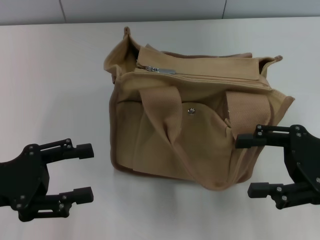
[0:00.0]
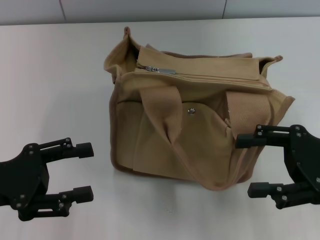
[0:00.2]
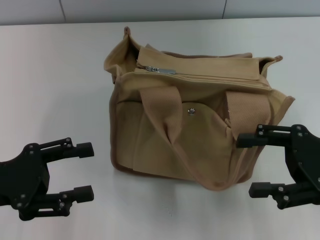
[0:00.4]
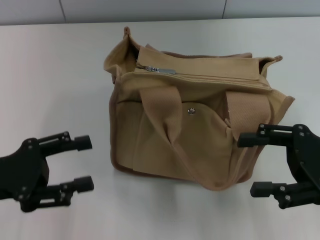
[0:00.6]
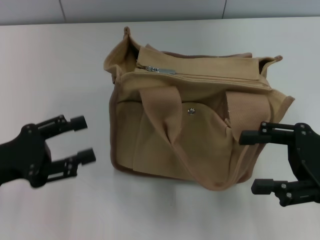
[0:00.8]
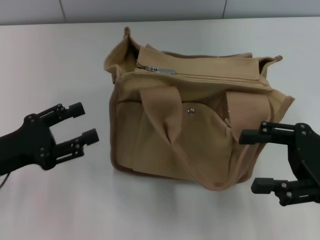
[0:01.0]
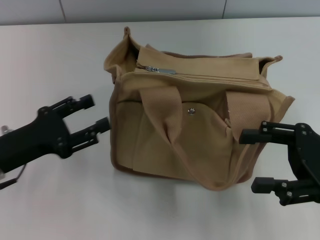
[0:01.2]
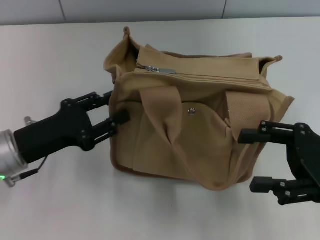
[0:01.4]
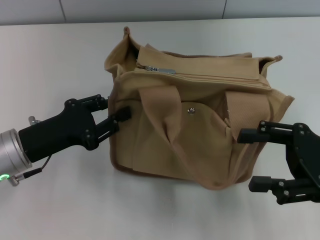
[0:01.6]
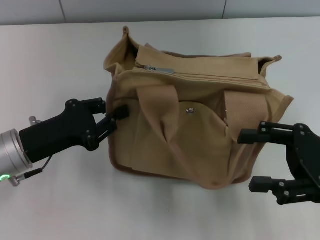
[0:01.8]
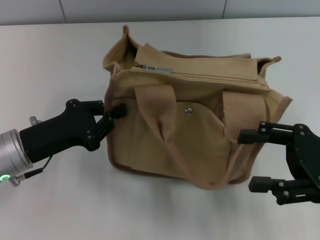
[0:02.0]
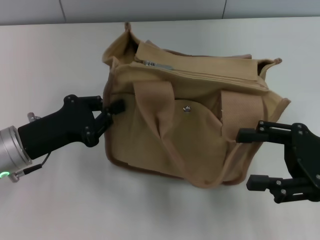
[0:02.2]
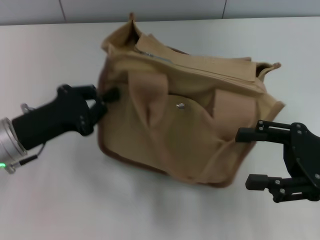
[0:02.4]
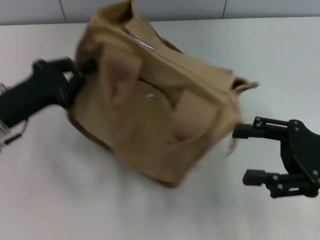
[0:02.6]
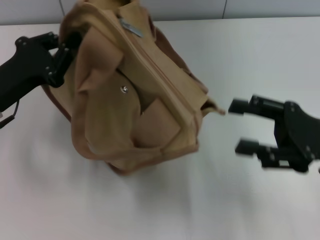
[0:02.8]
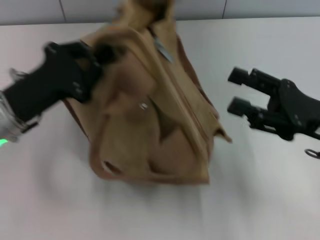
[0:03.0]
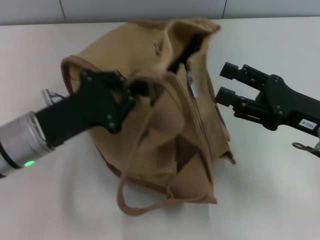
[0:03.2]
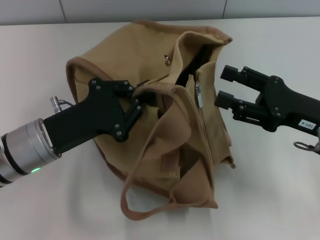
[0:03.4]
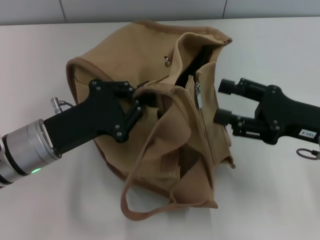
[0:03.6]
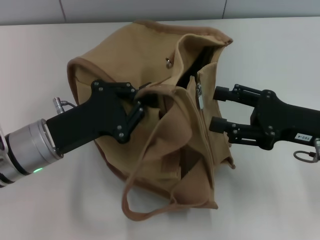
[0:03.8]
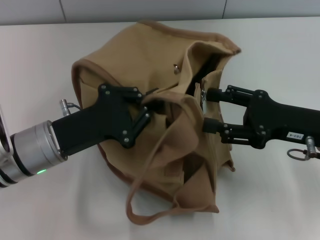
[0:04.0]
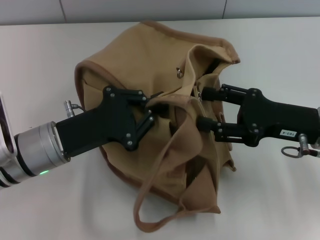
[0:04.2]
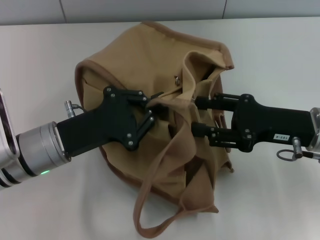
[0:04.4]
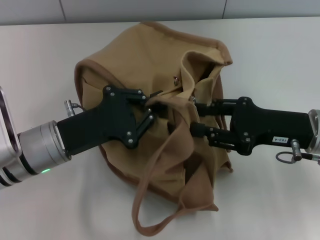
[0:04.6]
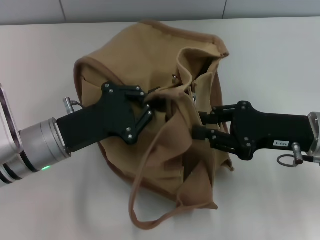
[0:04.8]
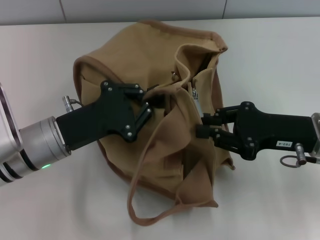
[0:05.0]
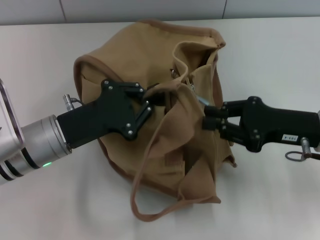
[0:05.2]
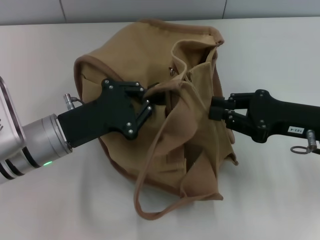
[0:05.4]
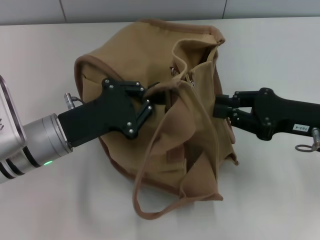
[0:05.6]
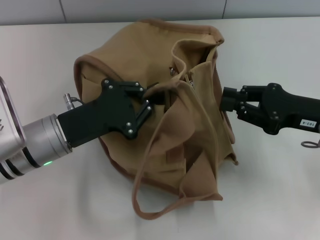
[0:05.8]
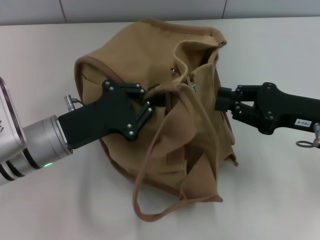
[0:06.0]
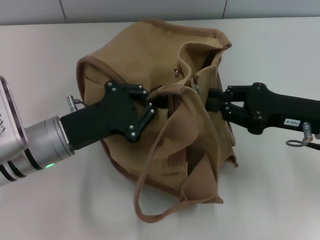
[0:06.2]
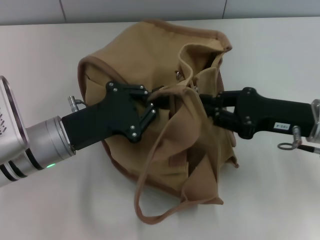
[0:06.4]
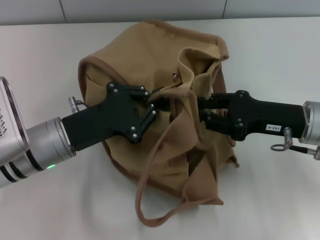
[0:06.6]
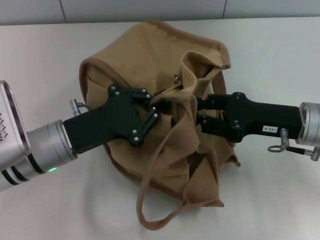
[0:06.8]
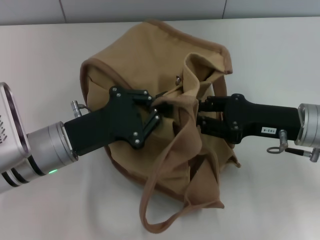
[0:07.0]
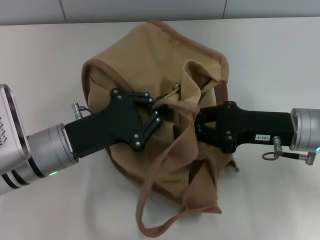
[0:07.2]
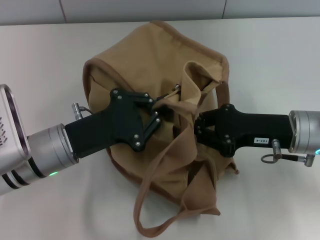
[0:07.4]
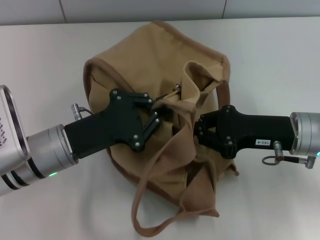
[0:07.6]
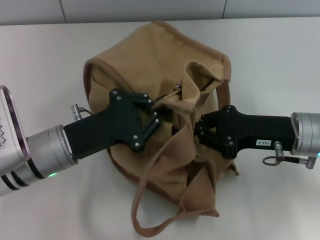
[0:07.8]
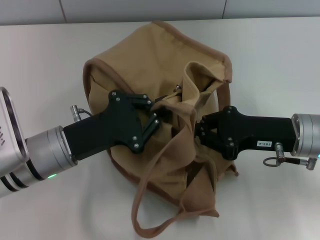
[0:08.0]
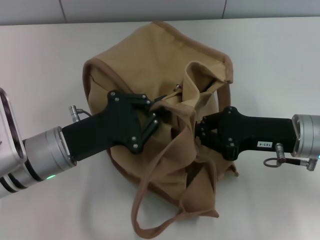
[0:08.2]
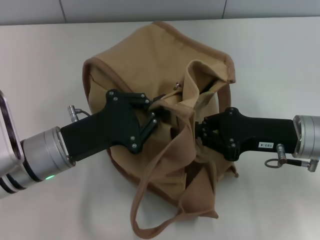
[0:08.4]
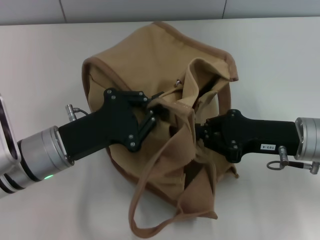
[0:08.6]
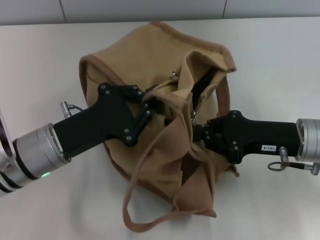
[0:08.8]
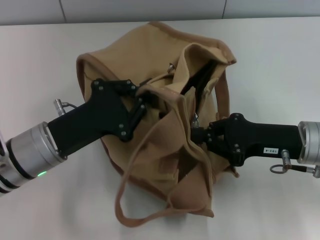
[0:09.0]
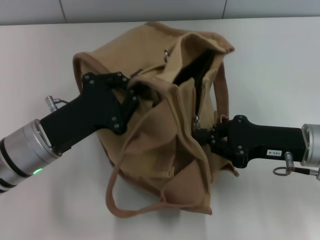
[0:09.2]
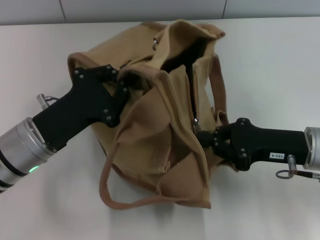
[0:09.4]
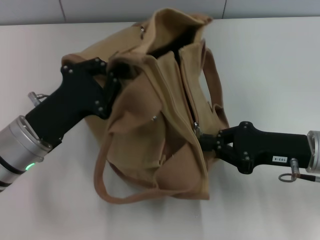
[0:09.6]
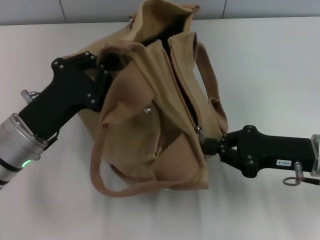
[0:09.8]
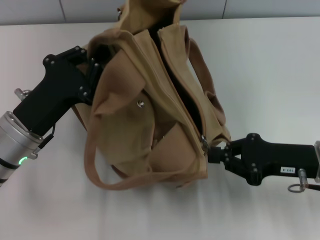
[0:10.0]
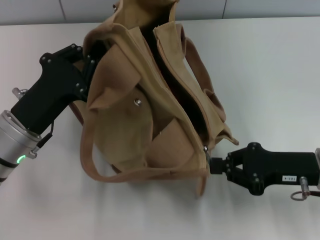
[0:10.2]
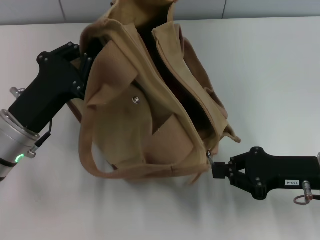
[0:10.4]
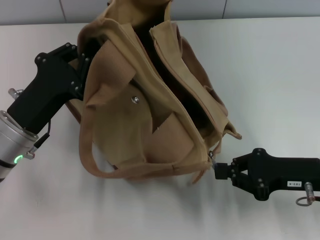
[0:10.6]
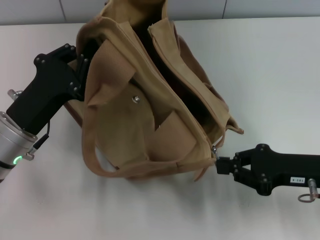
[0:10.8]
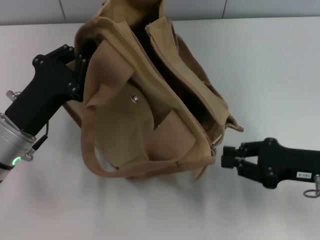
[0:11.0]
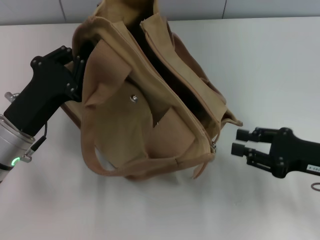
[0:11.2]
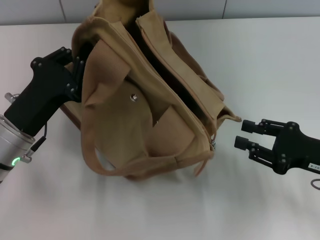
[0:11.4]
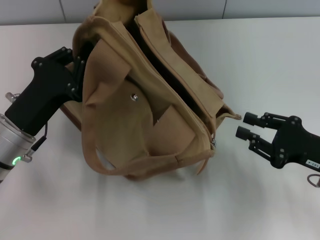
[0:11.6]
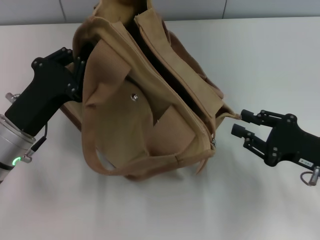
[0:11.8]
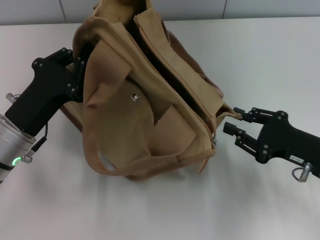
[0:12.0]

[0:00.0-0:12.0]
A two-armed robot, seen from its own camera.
Step, 0.0 to 11.0 s: Pull open the zipper with your right hand.
0.0 to 1.6 s: The left gripper goes roughly 5 cm to the right.
1.6 to 3.0 s: The left gripper closes up.
3.0 to 4.4 s: The left gripper shifts by some 5 cm.
4.4 to 6.0 s: The right gripper closes its fingers.
10.4 to 12.0 s: The right gripper opens up.

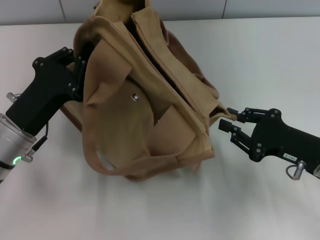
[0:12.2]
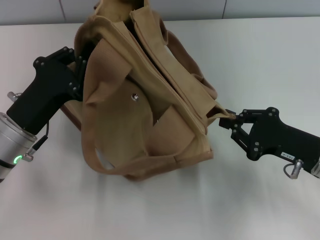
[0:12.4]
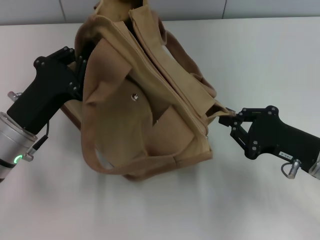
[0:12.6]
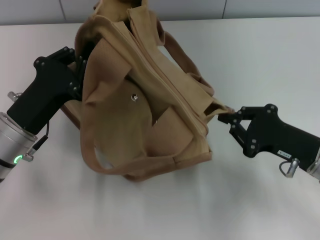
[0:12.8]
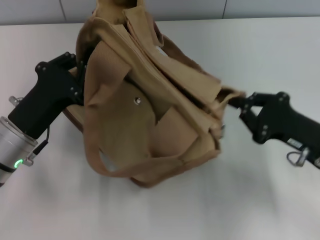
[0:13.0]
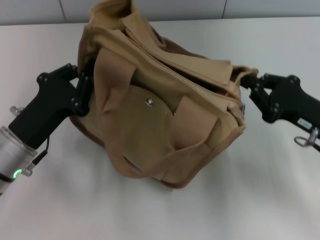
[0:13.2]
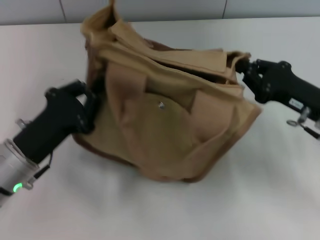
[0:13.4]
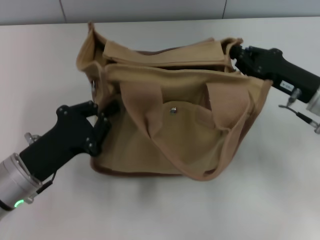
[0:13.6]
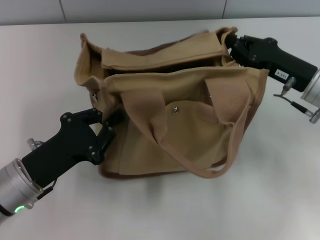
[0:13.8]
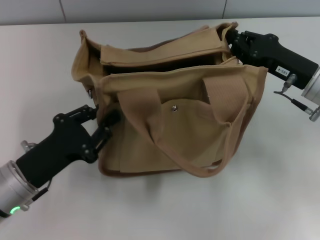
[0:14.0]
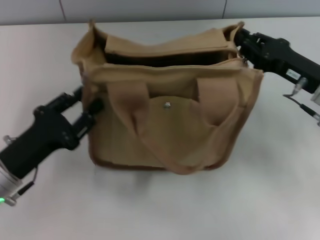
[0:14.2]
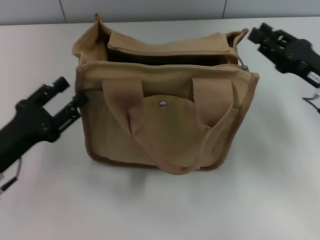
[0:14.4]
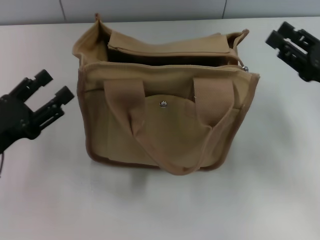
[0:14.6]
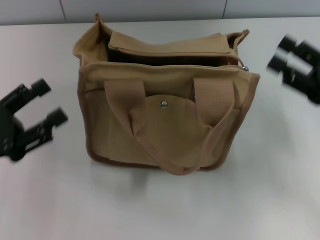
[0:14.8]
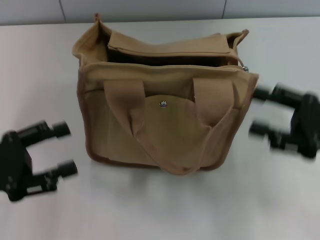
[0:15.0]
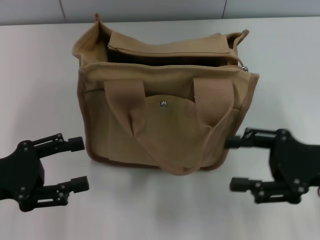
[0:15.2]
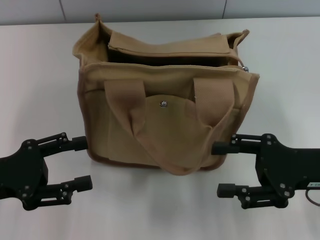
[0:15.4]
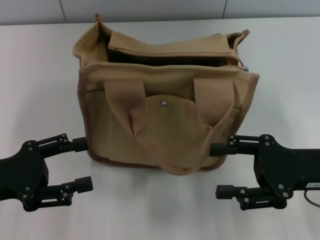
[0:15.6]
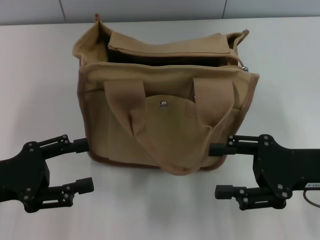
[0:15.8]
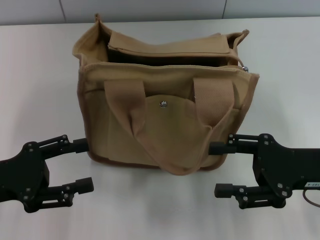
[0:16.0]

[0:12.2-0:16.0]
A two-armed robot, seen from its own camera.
Step, 12.2 to 14.2 s: Grab the bag with your left hand.
12.2 to 13.4 s: The right gripper travels forward by roughly 5 cm, and closes its fingers.
13.4 to 14.8 s: The right gripper moves about 5 cm, and opens up. Meanwhile the left gripper heads to the left, covering some 10 cm, and opens its fingers.
14.8 to 16.0 s: The right gripper goes approximately 5 cm to the left.

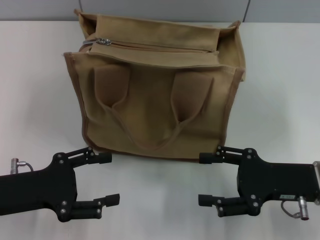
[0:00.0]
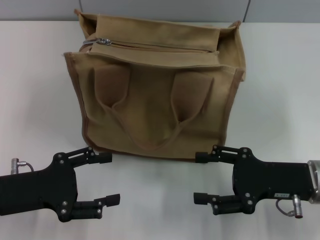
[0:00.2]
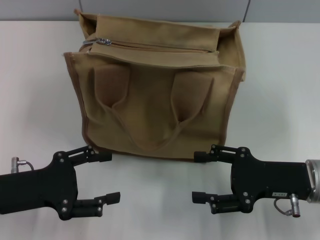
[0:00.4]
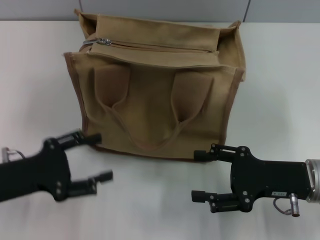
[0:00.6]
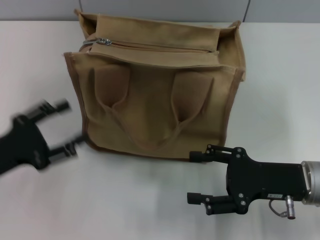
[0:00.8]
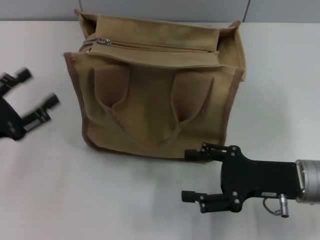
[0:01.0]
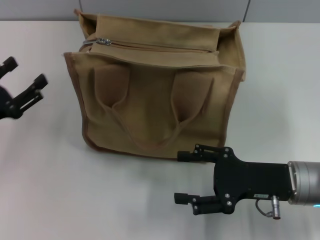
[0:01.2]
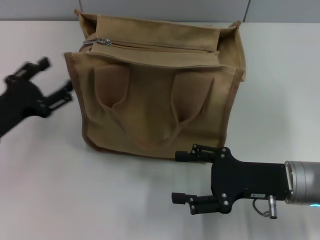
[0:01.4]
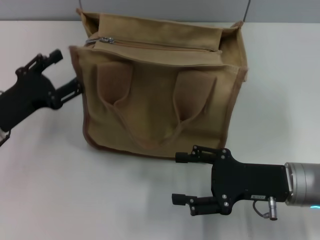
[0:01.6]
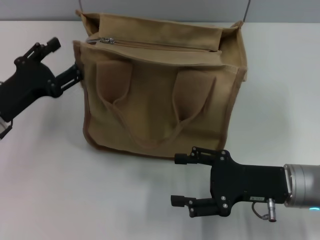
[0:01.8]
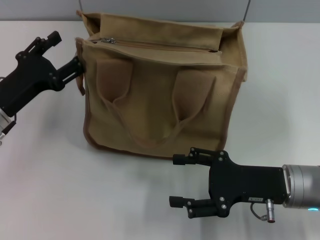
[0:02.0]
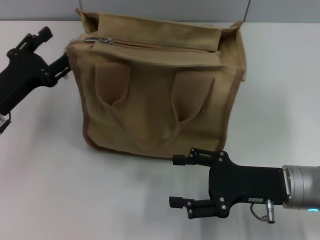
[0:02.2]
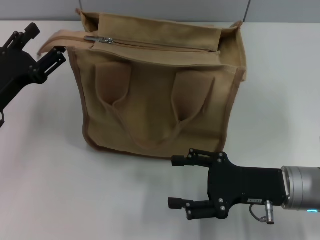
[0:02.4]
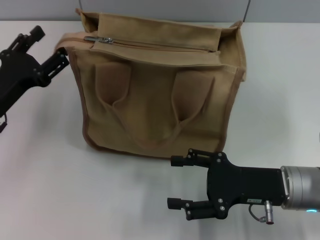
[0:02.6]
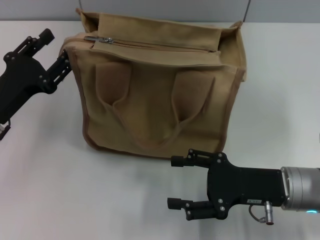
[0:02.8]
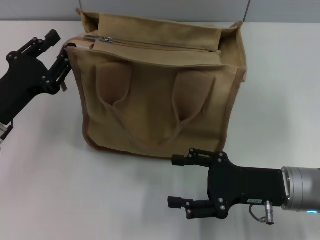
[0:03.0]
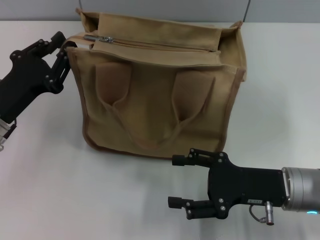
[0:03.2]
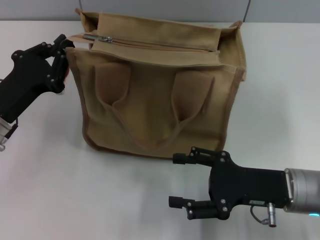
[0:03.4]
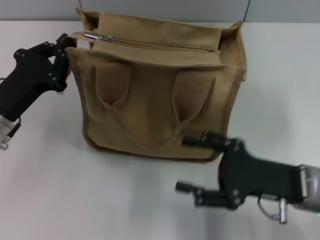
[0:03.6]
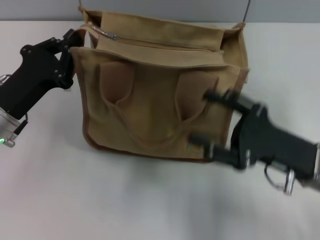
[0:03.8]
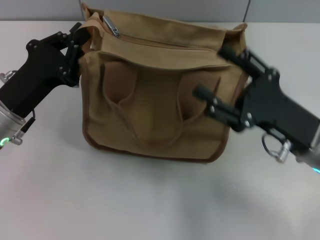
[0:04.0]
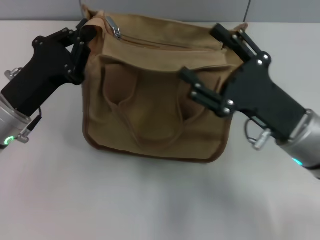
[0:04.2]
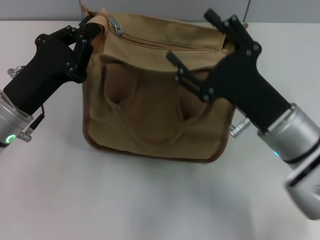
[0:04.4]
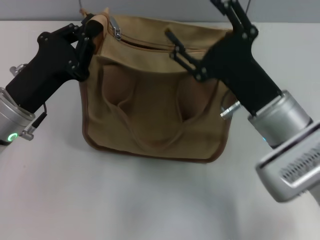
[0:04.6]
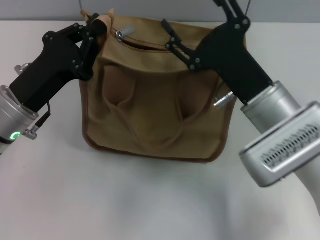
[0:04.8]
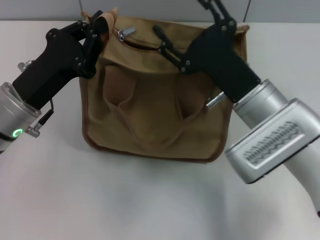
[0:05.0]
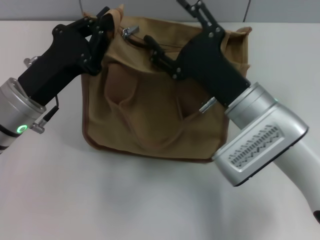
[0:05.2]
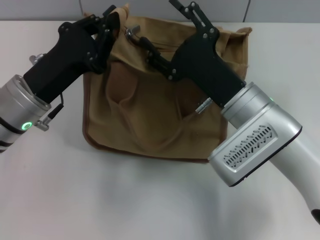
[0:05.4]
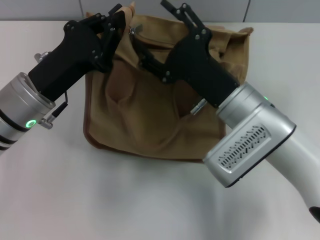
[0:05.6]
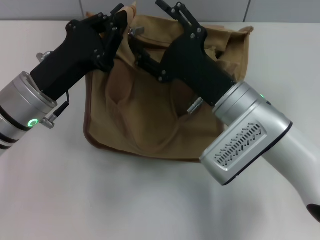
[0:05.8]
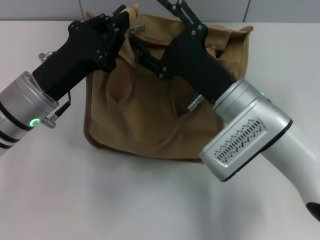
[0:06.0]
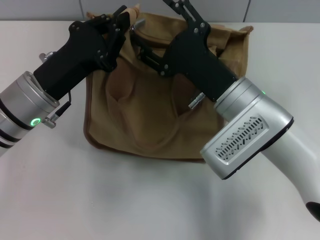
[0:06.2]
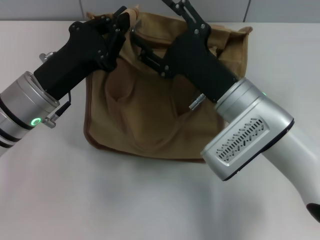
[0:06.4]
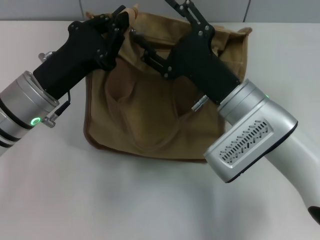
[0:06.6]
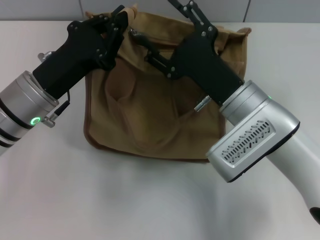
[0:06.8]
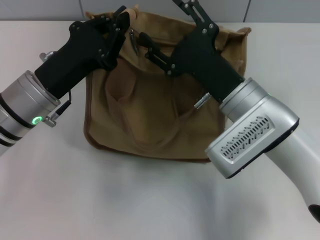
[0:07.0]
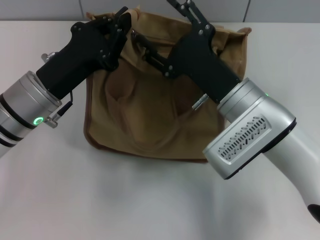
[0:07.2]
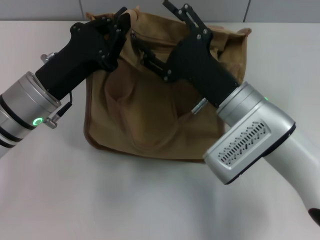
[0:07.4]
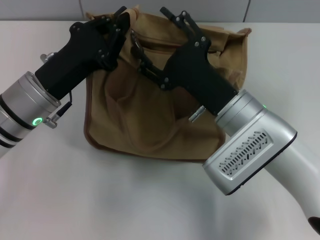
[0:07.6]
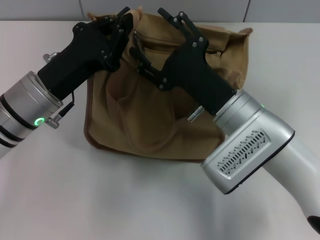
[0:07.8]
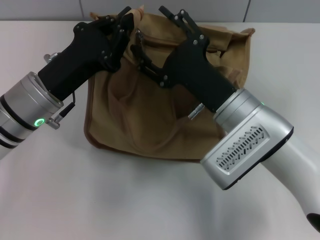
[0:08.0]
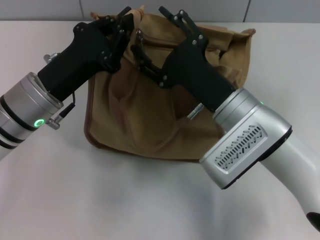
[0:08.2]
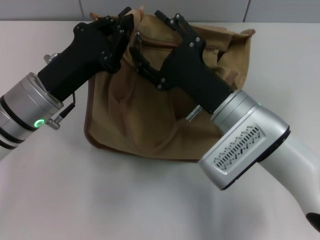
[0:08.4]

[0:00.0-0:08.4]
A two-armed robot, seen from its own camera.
0.0 to 1.4 s: The left gripper heads forward, covering roughly 5 cm.
1.4 to 2.8 s: The grippers move only a little.
2.8 to 4.2 s: The left gripper closes its fingers. The right gripper ends up some 5 cm from where it was.
4.2 to 5.6 s: The right gripper shifts some 5 cm to the left.
5.6 to 7.0 s: The two grippers keep their place.
7.0 to 8.4 s: The grippers move only a little.
